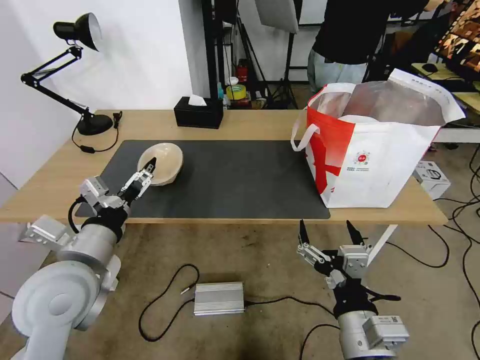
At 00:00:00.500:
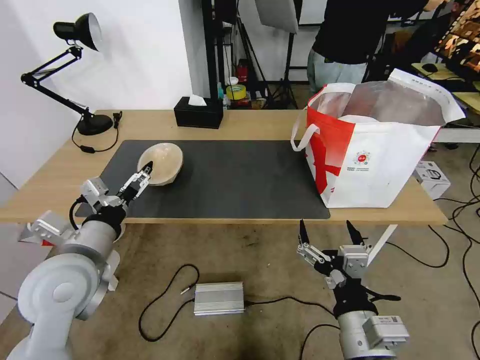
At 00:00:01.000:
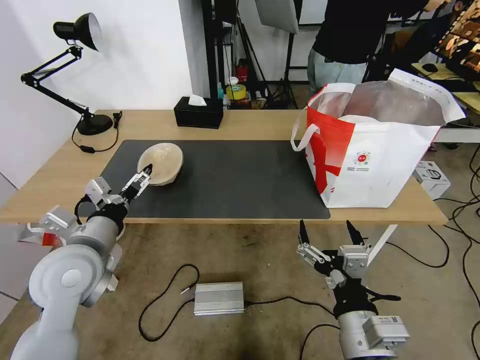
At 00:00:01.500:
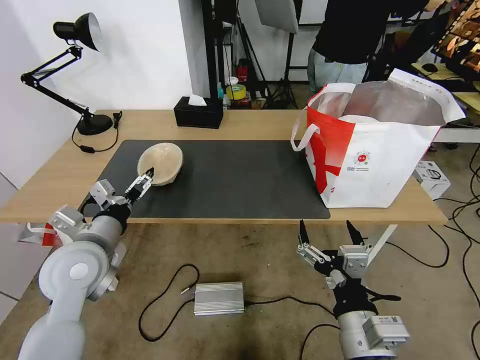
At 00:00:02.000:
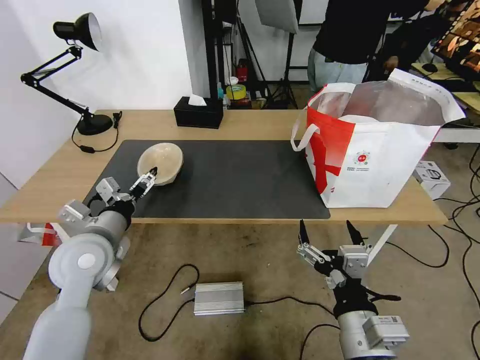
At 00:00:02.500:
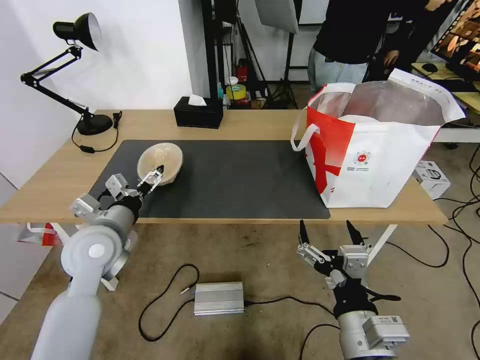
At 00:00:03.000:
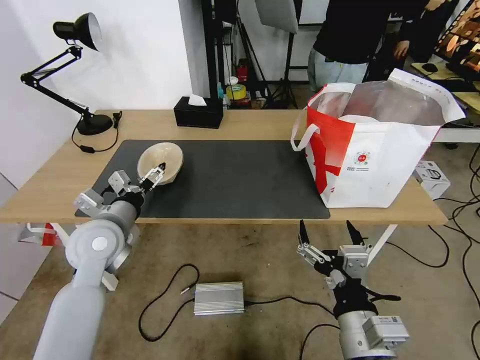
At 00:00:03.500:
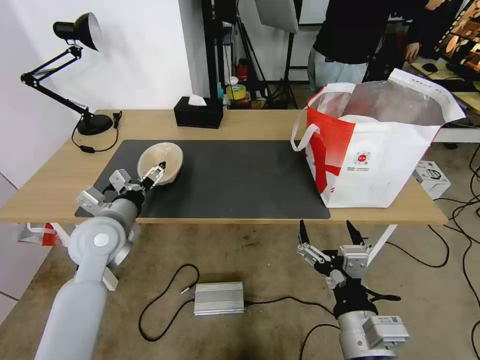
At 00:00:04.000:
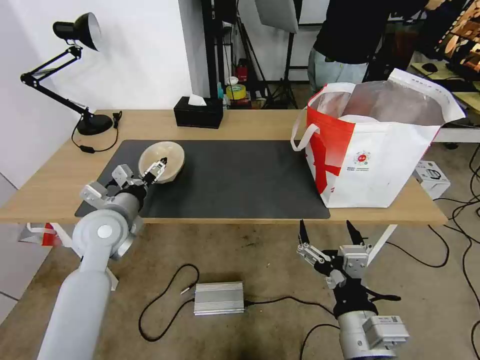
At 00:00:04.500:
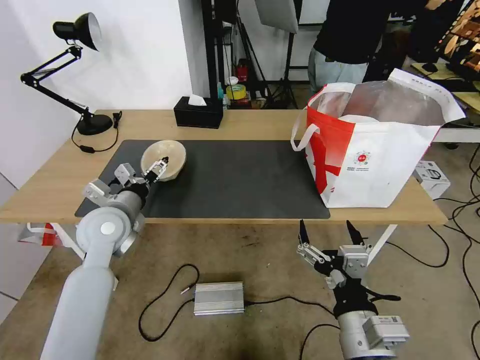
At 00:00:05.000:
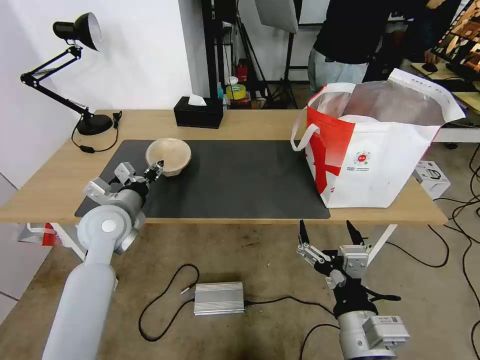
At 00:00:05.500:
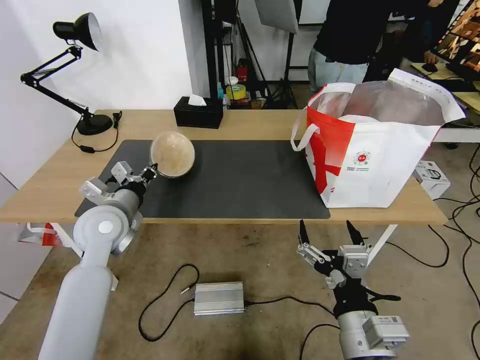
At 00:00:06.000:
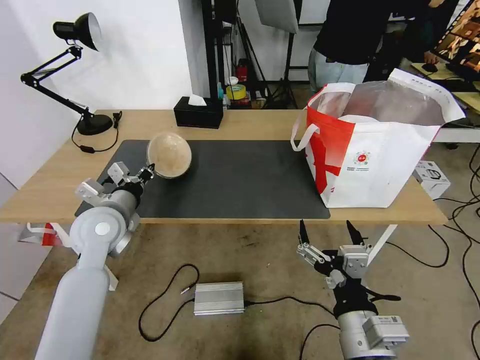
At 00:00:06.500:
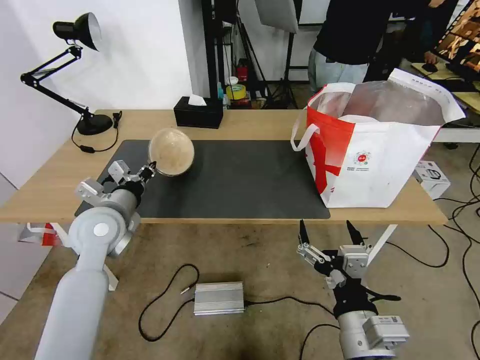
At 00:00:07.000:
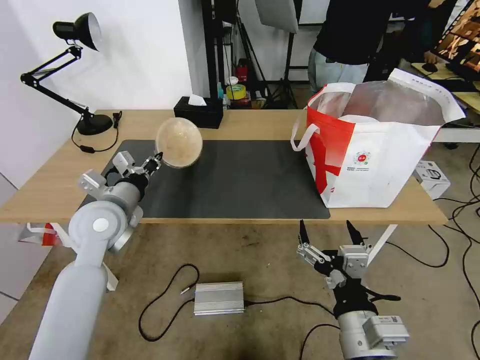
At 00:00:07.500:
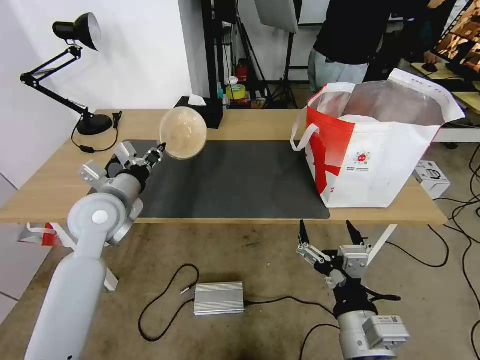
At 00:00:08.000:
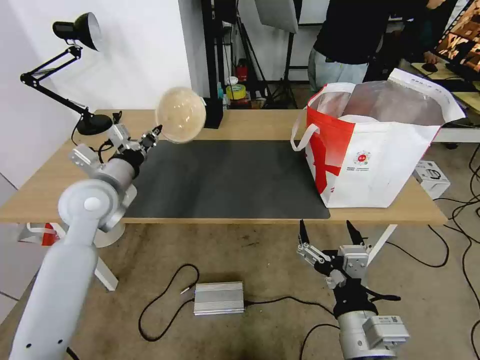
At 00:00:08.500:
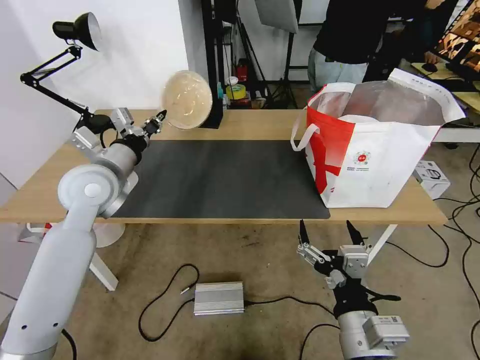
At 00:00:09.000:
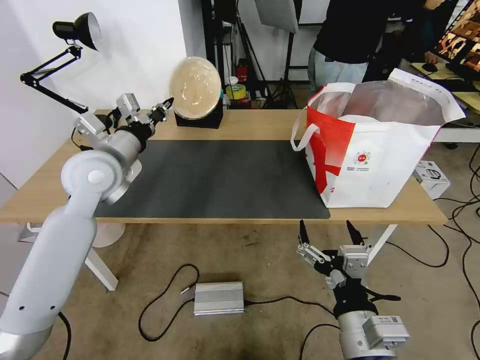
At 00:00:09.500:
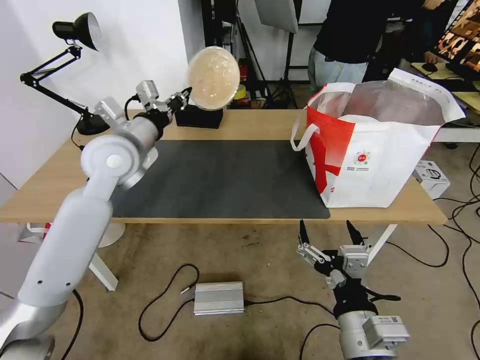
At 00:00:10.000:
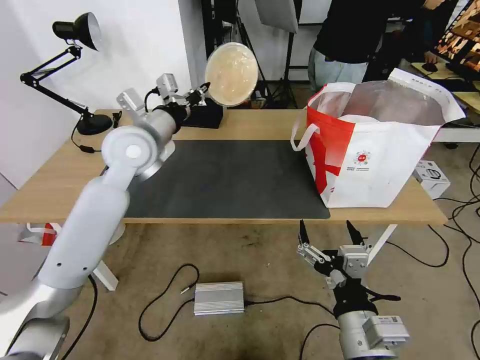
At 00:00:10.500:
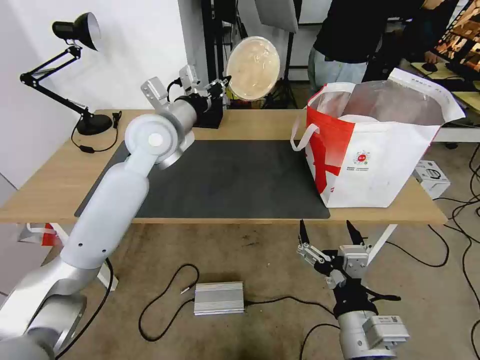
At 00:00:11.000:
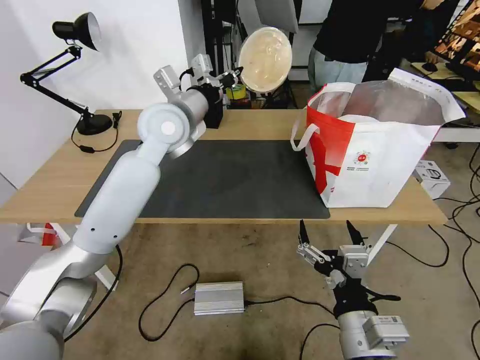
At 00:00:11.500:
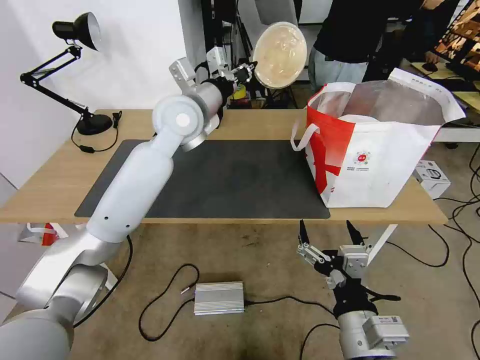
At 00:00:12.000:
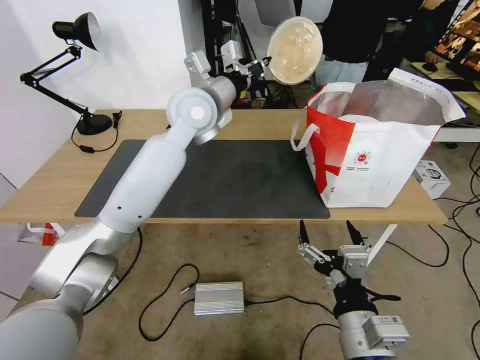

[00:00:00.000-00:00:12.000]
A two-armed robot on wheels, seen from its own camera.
Task of the whole recording: Pick up the trash from the table and place it into the takeout bag.
00:00:00.000 to 00:00:02.000: The left gripper heads forward, covering approximately 5 cm.
00:00:02.000 to 00:00:04.000: The left gripper heads forward, covering about 5 cm.
00:00:04.000 to 00:00:06.000: The left gripper closes its fingers.
00:00:06.000 to 00:00:08.000: The left gripper is displaced upward by some 5 cm.
00:00:08.000 to 00:00:10.000: The left gripper goes roughly 15 cm to the right, forward and upward.
00:00:10.000 to 00:00:12.000: The left gripper is displaced to the right and forward by some 15 cm.

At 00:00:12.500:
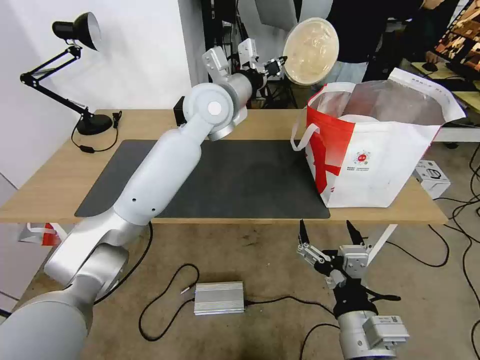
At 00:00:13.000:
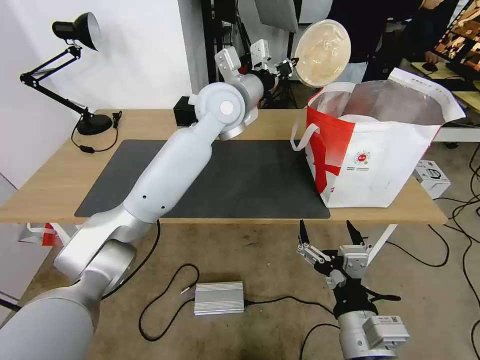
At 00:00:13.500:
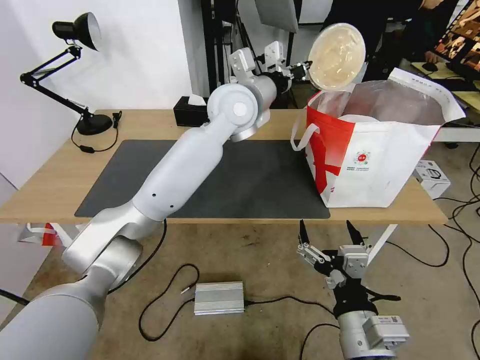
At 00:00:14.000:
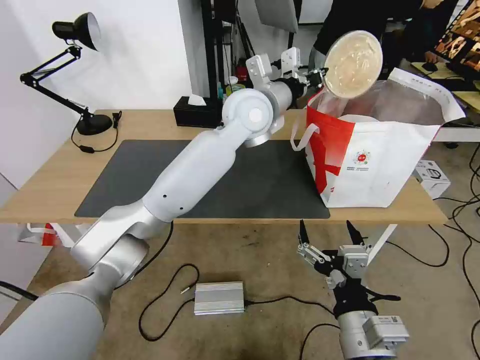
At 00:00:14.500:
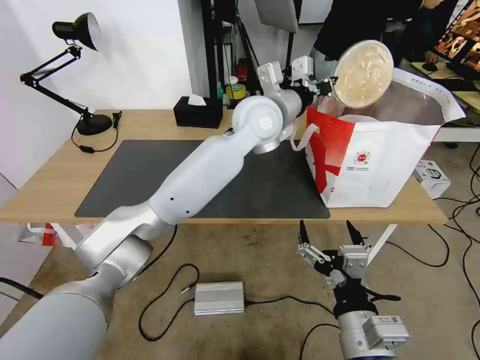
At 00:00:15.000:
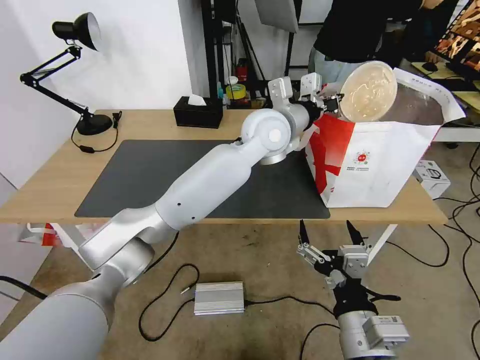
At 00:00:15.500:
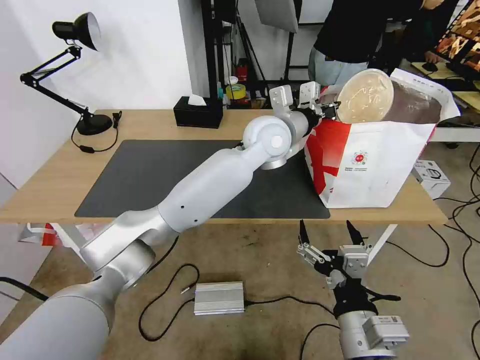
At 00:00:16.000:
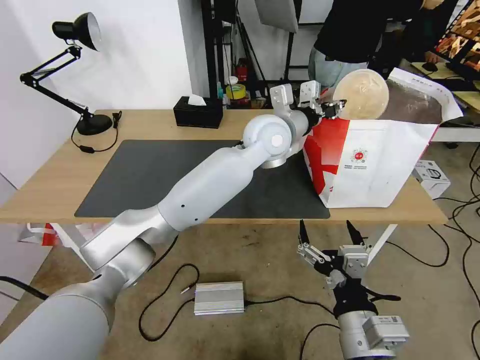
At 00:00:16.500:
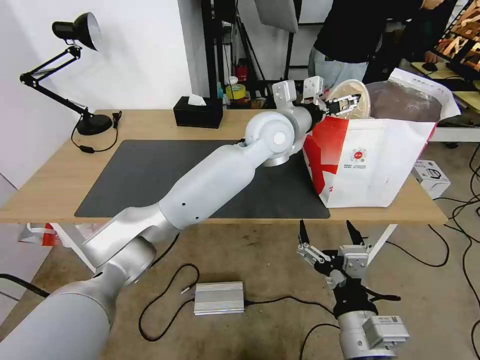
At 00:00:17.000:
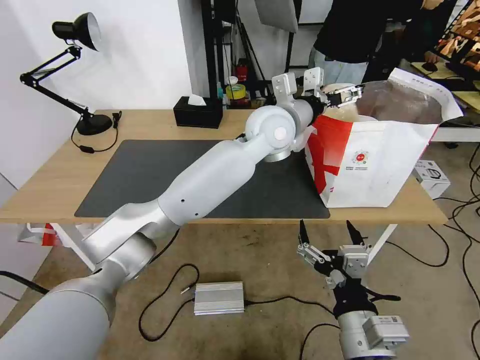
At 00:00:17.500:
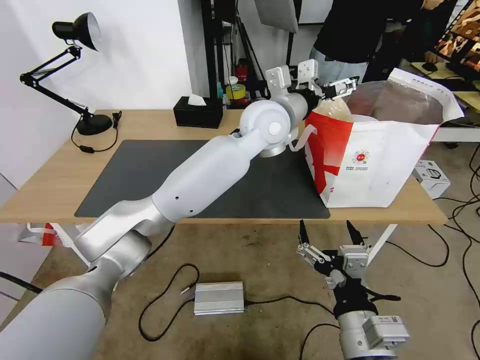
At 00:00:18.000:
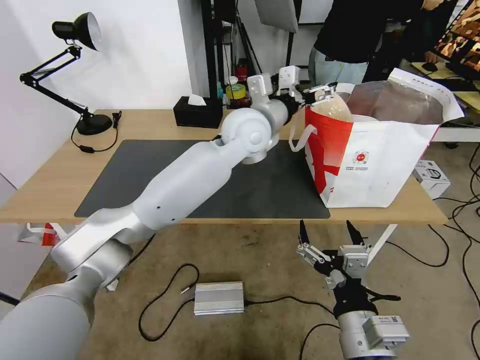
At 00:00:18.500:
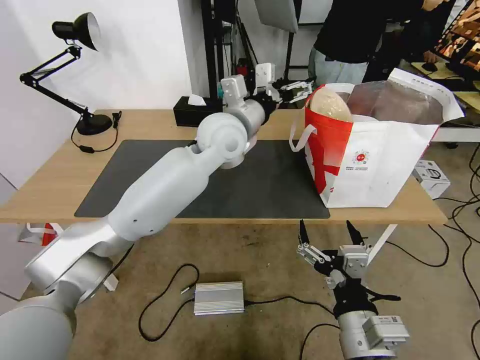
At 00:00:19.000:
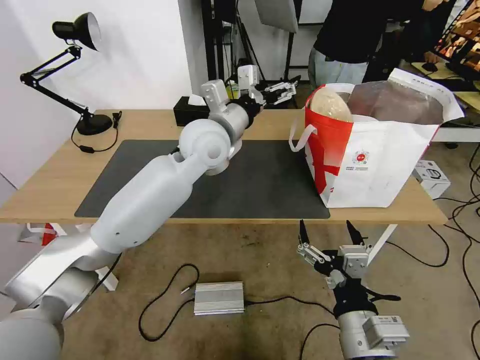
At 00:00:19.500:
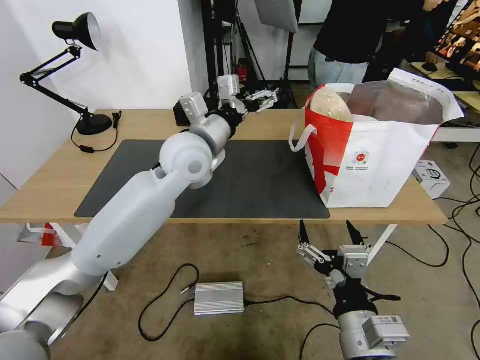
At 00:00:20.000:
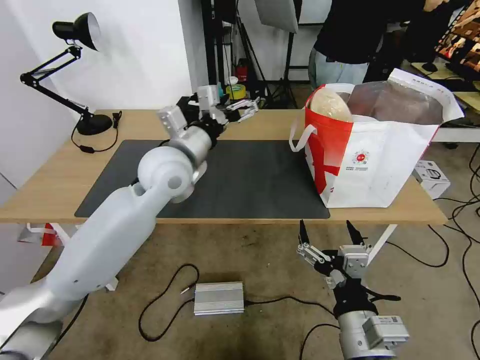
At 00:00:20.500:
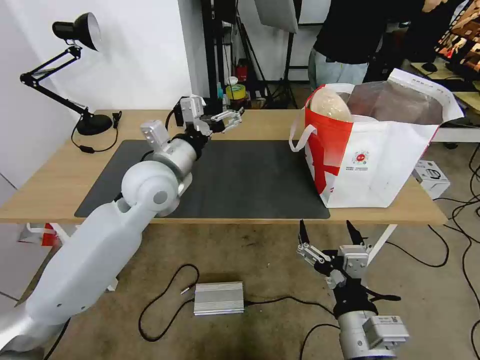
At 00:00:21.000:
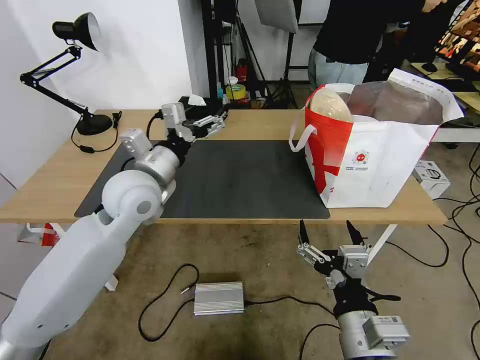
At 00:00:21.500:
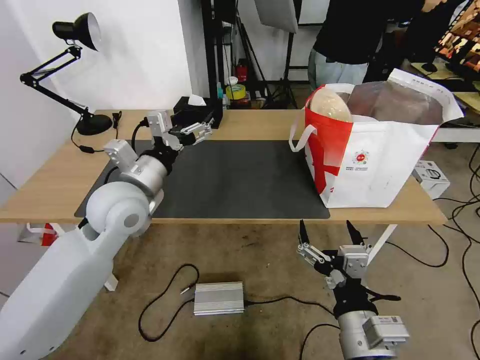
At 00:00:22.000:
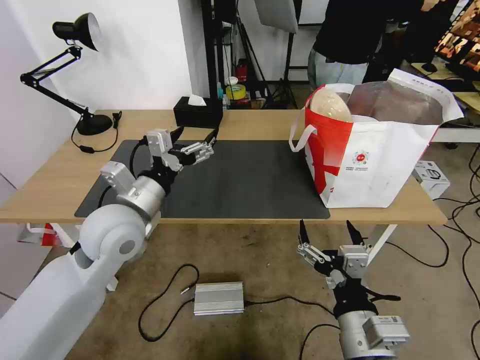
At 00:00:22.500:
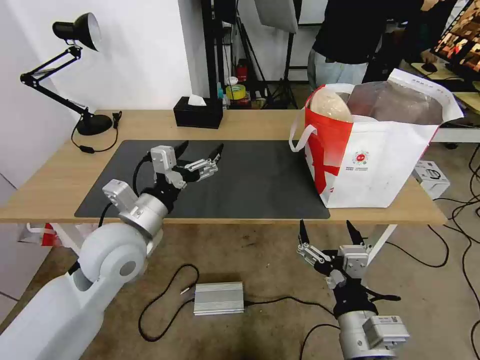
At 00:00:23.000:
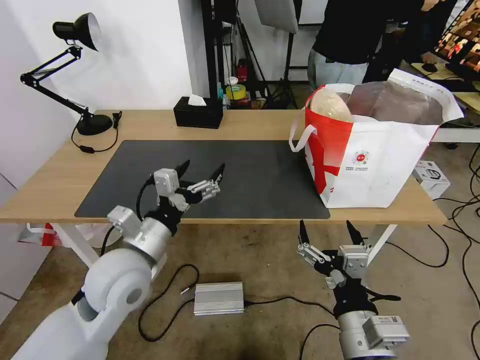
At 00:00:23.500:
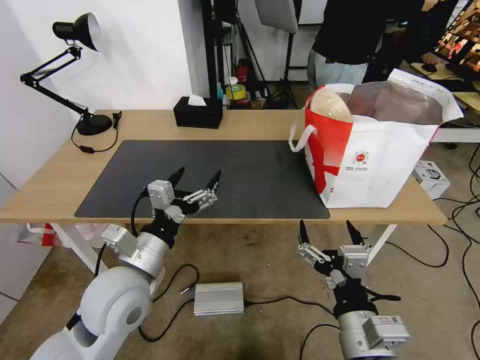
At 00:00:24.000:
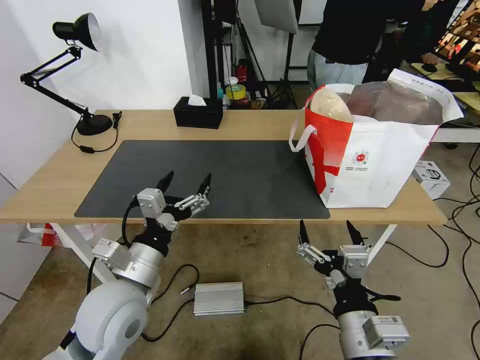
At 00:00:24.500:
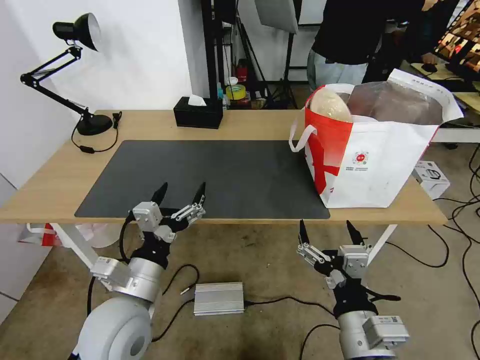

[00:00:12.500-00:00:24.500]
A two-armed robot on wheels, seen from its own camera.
Task of the whole recording: Pick up the trash from the table and place it into the takeout bag.
00:00:12.500 to 00:00:14.500: The left gripper goes approximately 10 cm to the right.
00:00:14.500 to 00:00:16.500: The left gripper opens.
00:00:16.500 to 00:00:18.500: The left gripper shifts some 10 cm to the left.
00:00:18.500 to 00:00:20.500: The left gripper travels to the left and backward by some 15 cm.
00:00:20.500 to 00:00:22.500: The left gripper is displaced backward by some 10 cm.
00:00:22.500 to 00:00:24.500: The left gripper travels backward and downward by some 10 cm.

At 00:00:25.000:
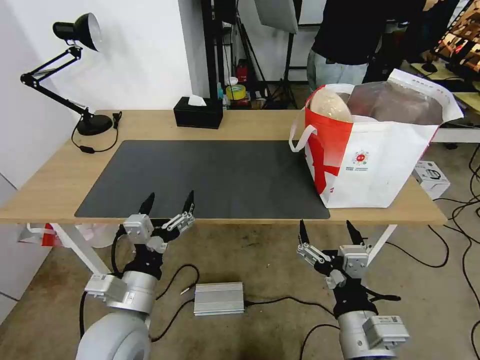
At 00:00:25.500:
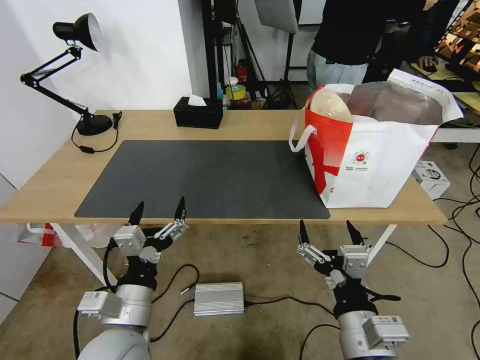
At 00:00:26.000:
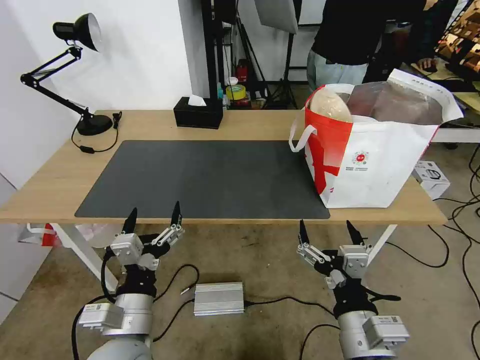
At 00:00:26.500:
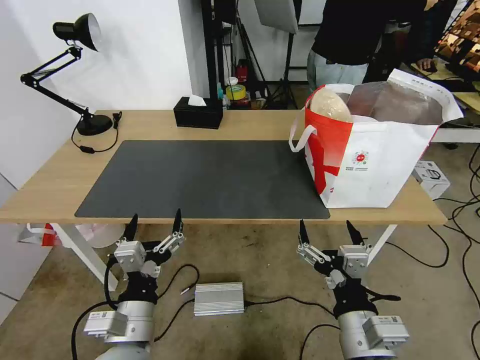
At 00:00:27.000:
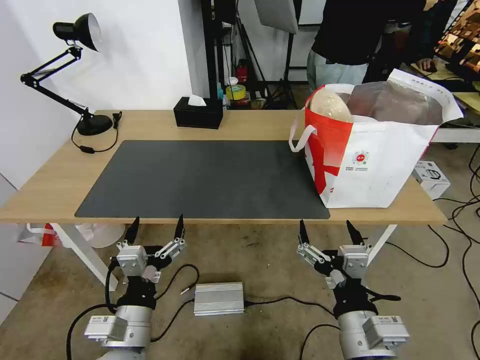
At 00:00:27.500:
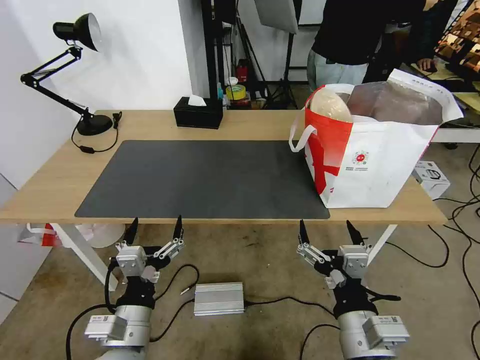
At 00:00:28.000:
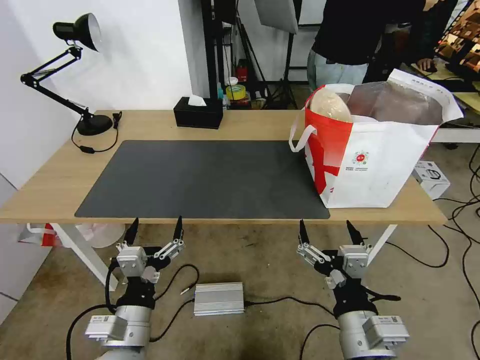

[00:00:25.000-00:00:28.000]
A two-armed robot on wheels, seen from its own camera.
Task of the whole recording: Pick up the trash from the table and place it into the takeout bag.
00:00:25.000 to 00:00:28.000: There are only small adjustments of the grippers.
